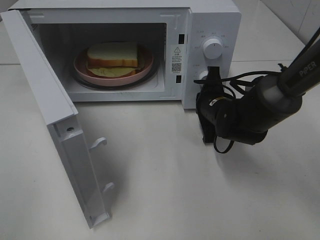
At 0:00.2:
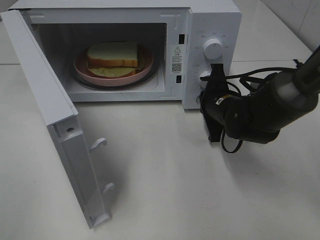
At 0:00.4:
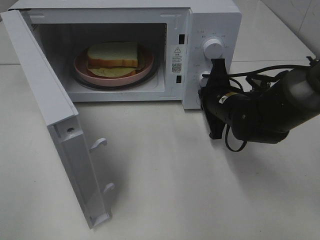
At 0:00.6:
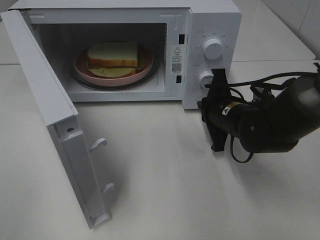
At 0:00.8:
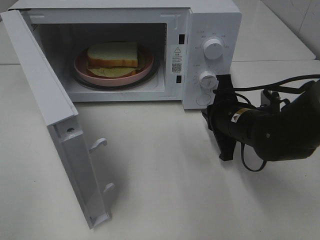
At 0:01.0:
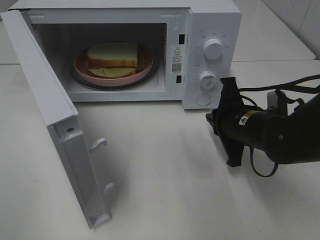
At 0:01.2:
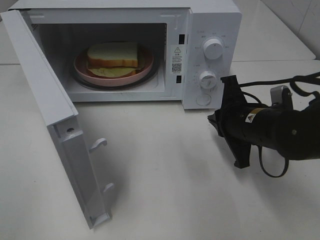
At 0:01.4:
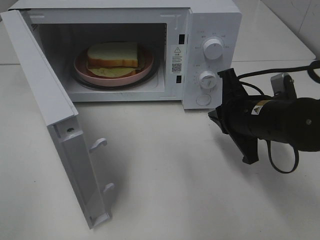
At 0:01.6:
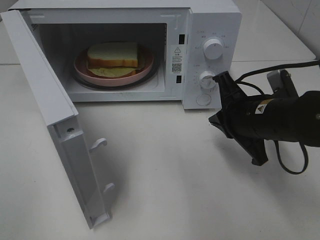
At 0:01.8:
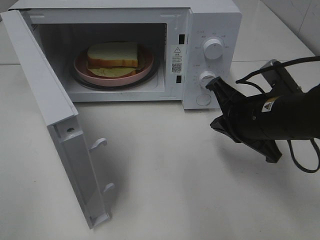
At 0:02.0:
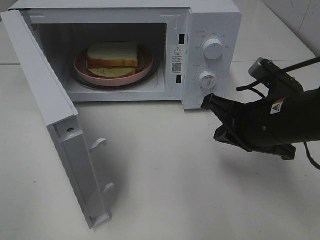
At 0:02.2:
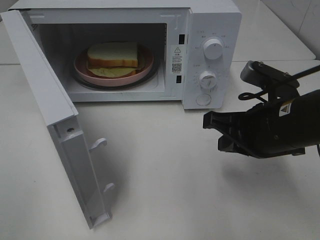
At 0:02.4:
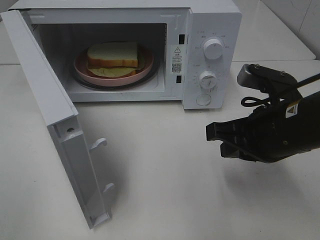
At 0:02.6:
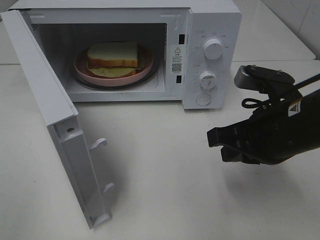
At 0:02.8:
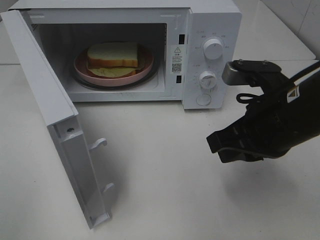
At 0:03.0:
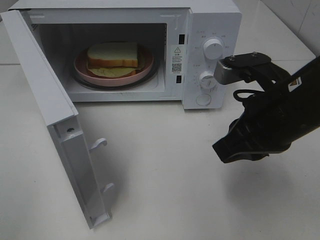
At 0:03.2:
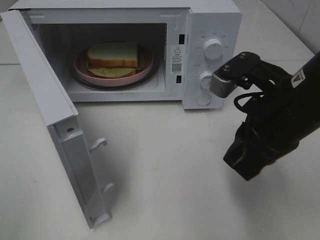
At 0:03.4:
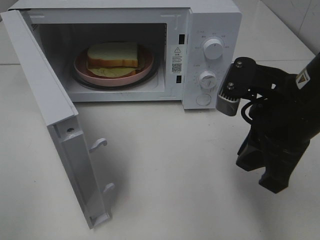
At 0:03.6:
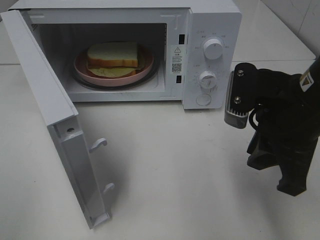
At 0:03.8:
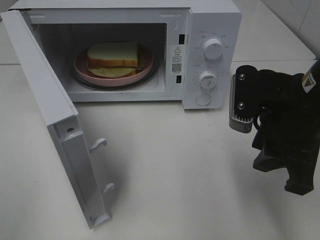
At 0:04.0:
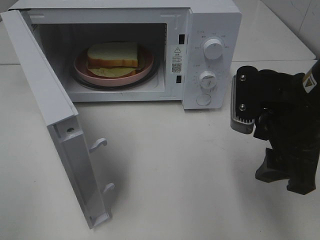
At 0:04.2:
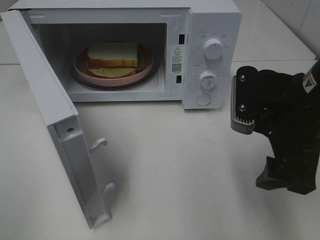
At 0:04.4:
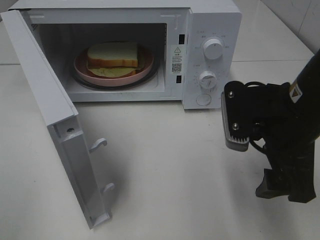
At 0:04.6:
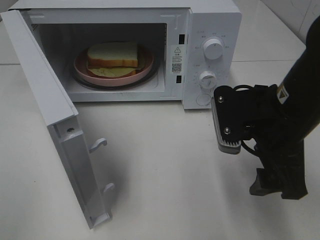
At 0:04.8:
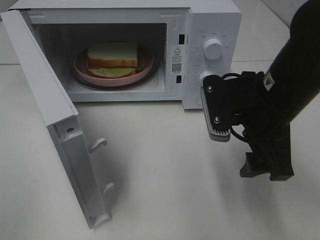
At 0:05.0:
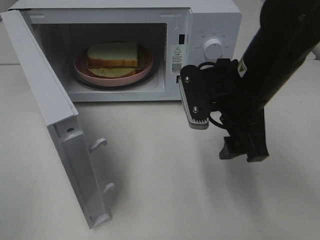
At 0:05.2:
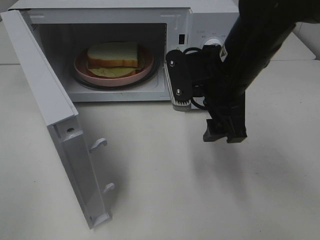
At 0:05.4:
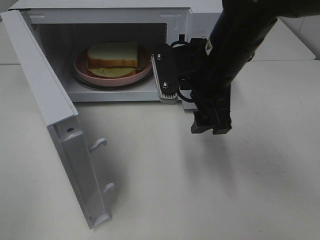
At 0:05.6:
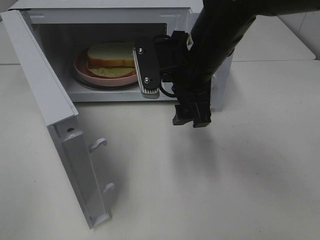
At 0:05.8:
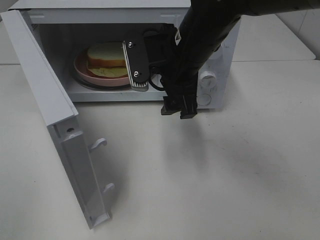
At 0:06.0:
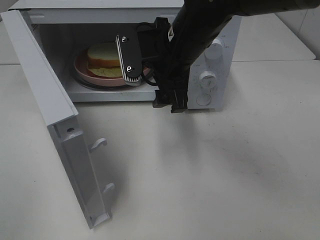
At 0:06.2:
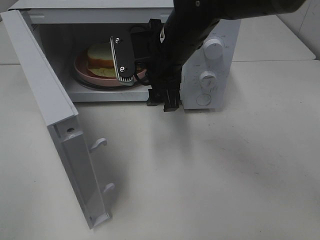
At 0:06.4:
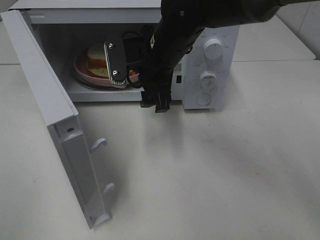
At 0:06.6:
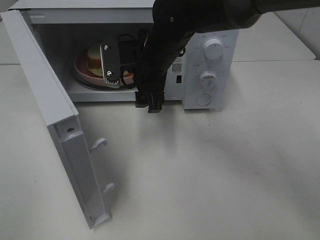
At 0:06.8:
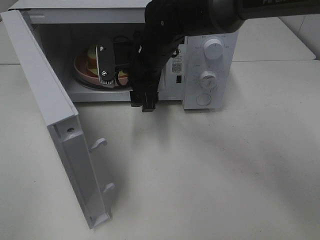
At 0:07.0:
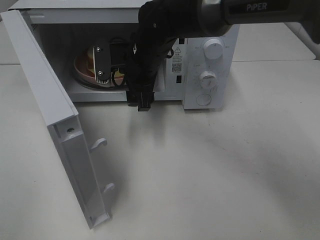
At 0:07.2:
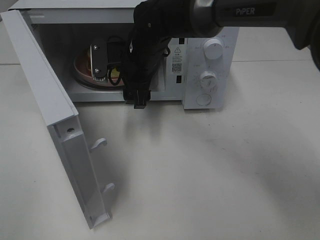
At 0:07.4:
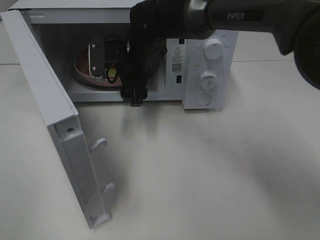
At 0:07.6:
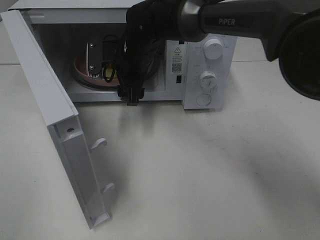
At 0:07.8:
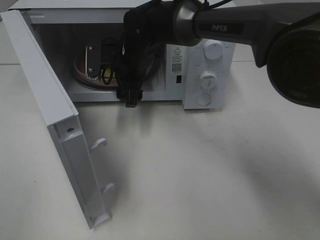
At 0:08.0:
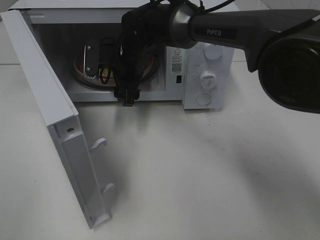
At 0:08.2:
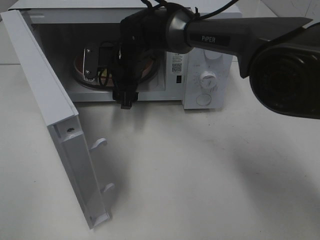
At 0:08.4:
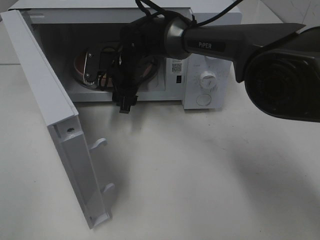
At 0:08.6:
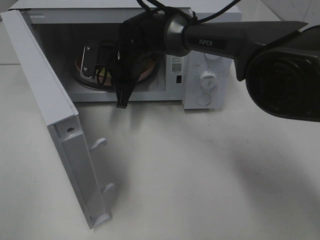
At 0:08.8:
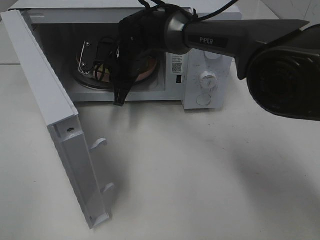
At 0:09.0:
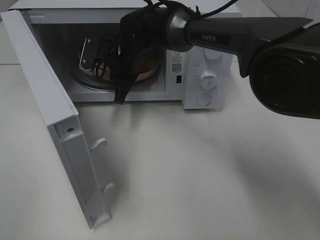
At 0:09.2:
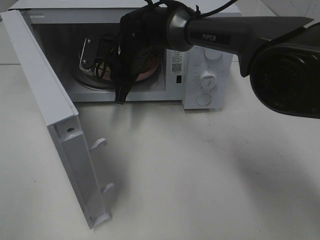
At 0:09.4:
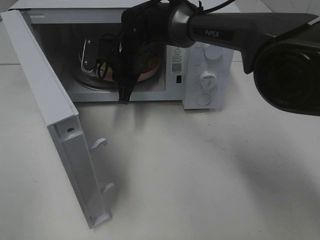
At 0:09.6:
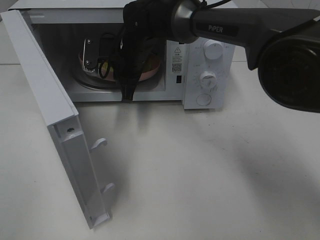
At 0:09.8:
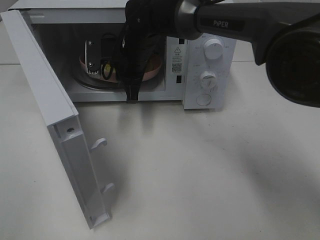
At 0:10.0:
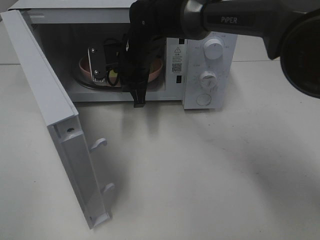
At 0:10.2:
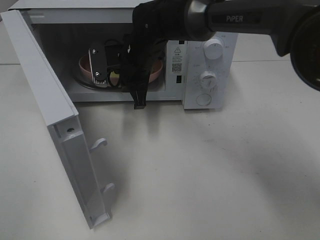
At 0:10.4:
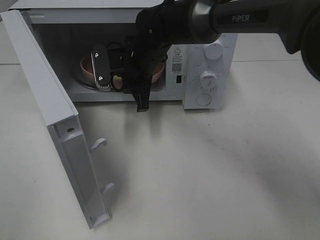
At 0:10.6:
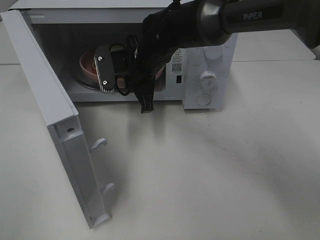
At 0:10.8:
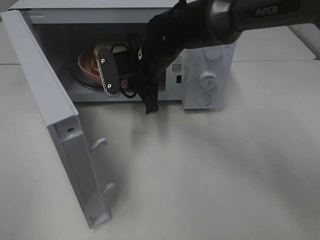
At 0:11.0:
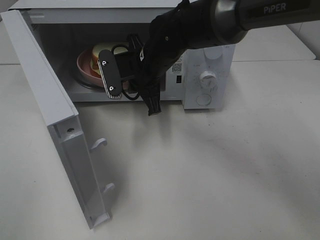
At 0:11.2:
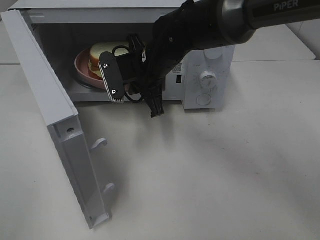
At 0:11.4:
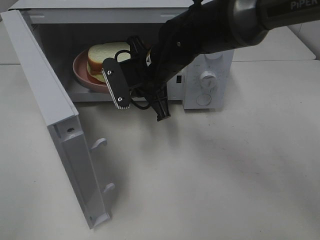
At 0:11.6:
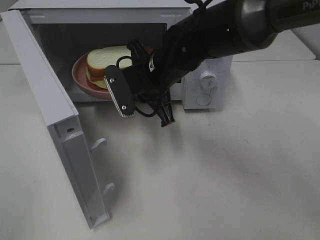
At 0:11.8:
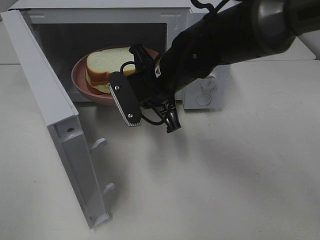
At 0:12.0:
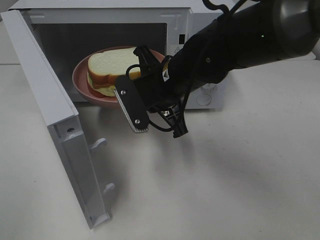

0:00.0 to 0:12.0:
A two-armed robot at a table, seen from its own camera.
Task of the whole recording: Heat Sandwich.
Step, 0:00.4 to 0:09.0: Right hand: grab the plate with the sandwich.
0:00.0 to 0:01.6: The right gripper travels backward and upward by roughly 10 cm.
0:01.6 to 0:03.0: The right gripper heads upward, covering approximately 5 cm.
0:03.0 to 0:04.4: The right gripper opens up.
0:04.4 to 0:06.0: The right gripper goes about 15 cm to the left and forward.
0:06.0 to 0:07.6: The right gripper heads forward, to the left and downward, covering roughly 15 cm.
0:07.6 to 0:09.0: The right gripper closes its fingers.
0:09.0 to 0:10.4: The grippers move only a little.
0:10.4 to 0:12.0: The right gripper heads backward and to the right, covering roughly 10 cm.

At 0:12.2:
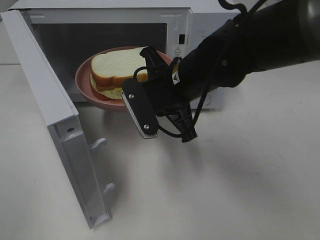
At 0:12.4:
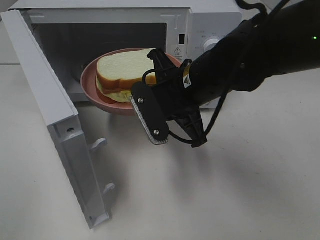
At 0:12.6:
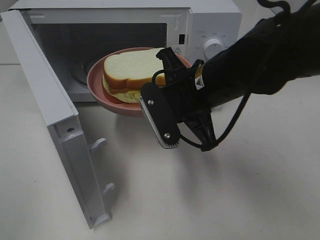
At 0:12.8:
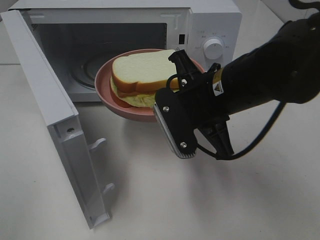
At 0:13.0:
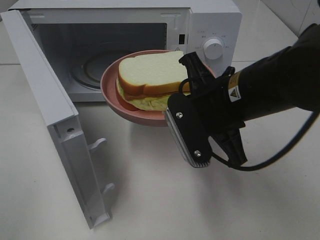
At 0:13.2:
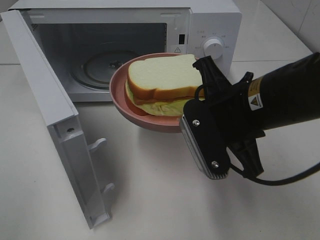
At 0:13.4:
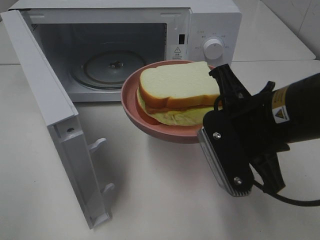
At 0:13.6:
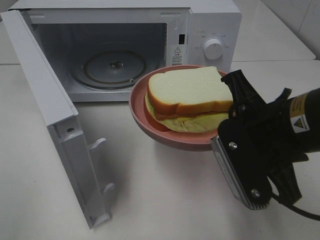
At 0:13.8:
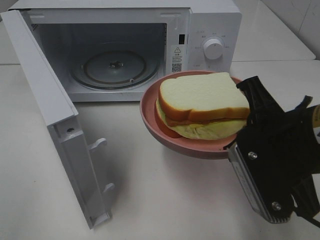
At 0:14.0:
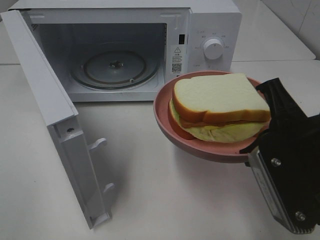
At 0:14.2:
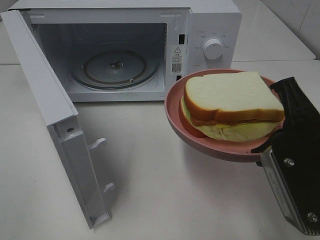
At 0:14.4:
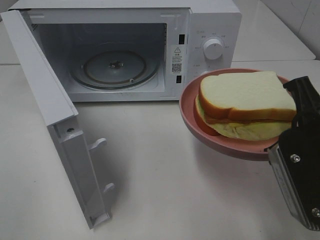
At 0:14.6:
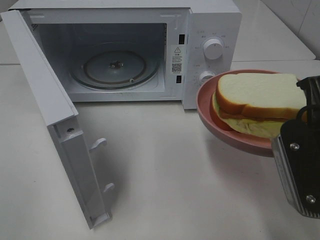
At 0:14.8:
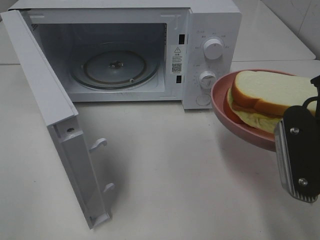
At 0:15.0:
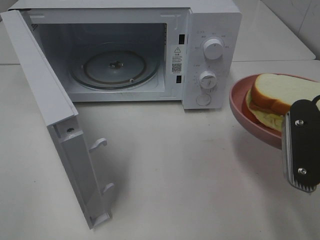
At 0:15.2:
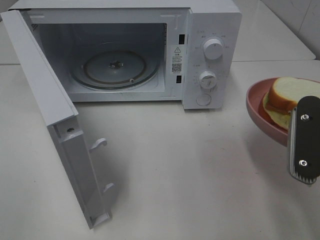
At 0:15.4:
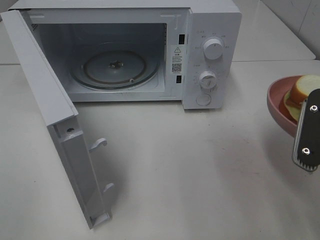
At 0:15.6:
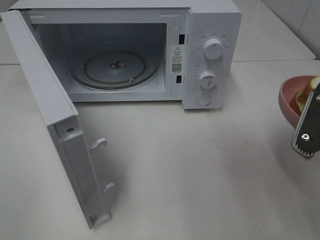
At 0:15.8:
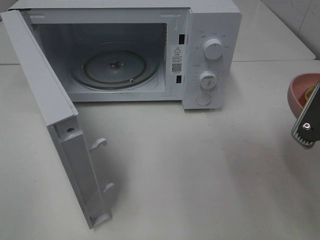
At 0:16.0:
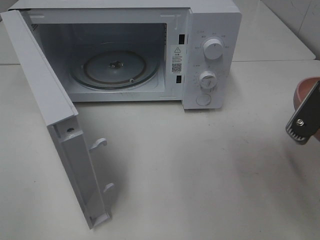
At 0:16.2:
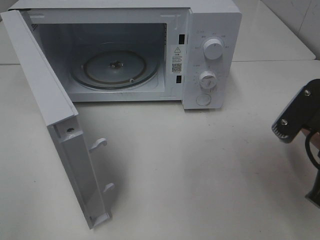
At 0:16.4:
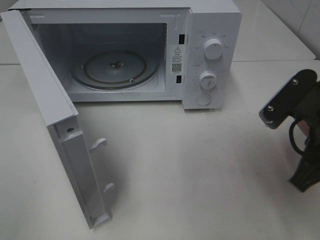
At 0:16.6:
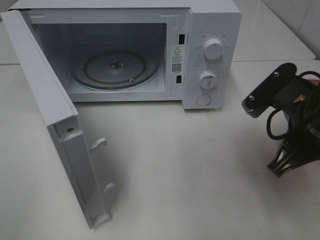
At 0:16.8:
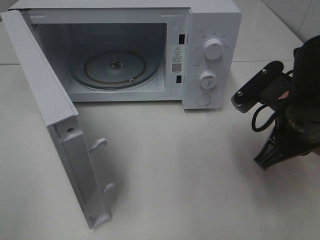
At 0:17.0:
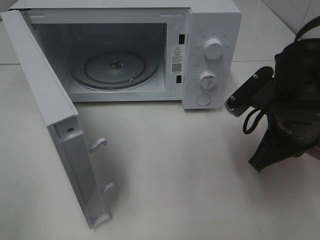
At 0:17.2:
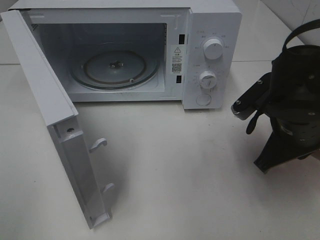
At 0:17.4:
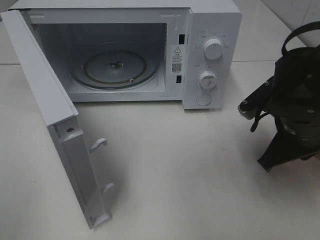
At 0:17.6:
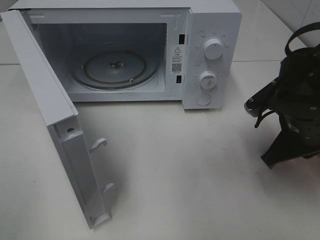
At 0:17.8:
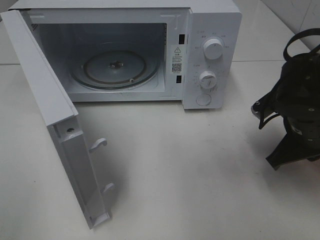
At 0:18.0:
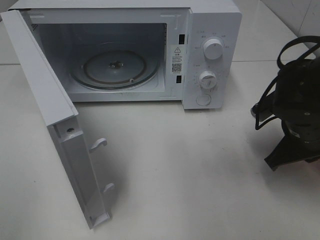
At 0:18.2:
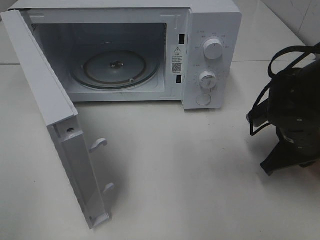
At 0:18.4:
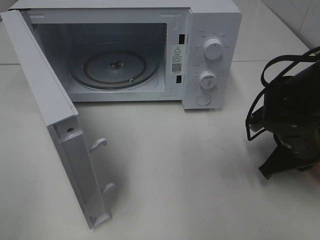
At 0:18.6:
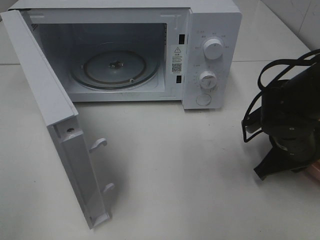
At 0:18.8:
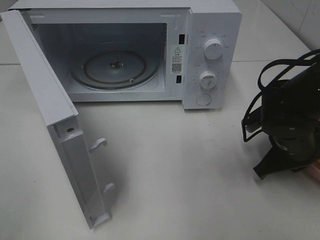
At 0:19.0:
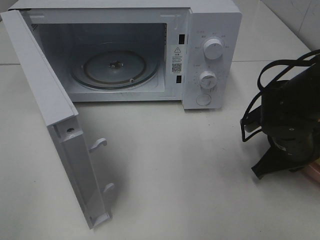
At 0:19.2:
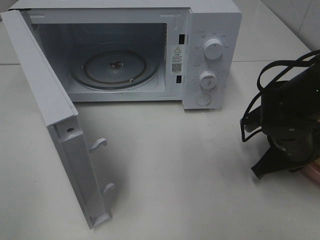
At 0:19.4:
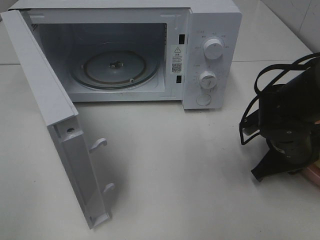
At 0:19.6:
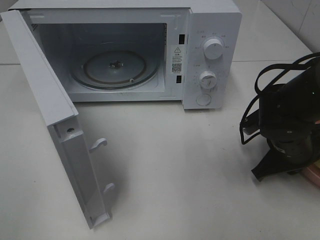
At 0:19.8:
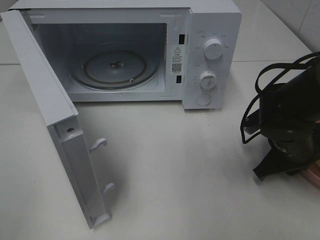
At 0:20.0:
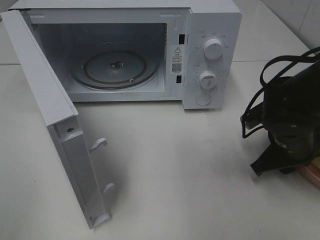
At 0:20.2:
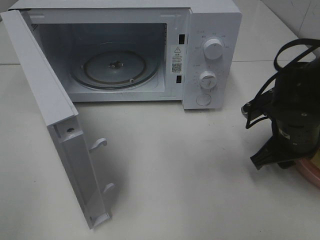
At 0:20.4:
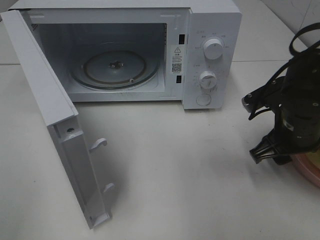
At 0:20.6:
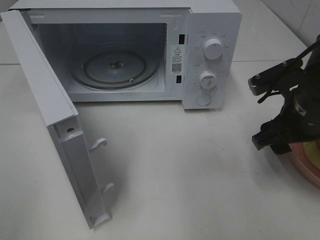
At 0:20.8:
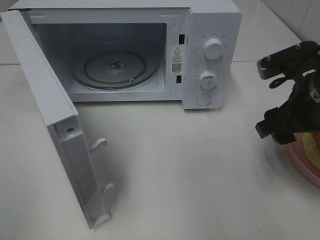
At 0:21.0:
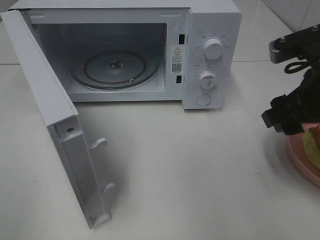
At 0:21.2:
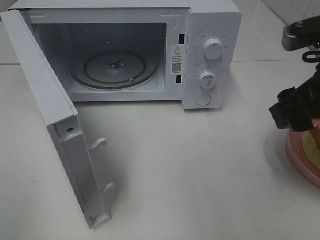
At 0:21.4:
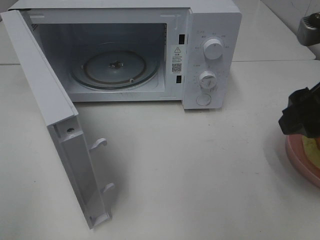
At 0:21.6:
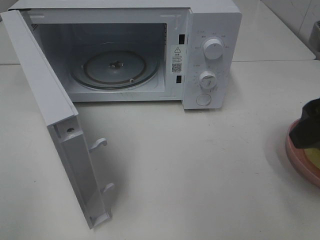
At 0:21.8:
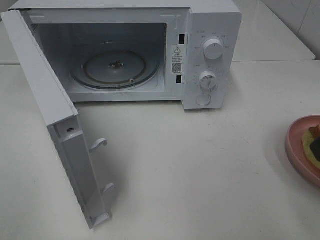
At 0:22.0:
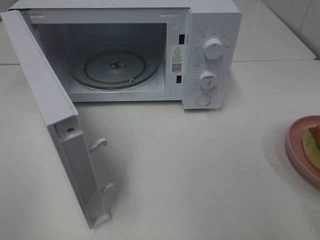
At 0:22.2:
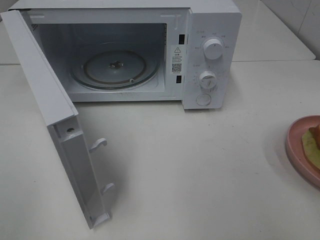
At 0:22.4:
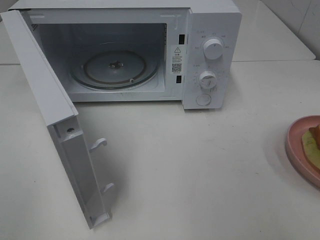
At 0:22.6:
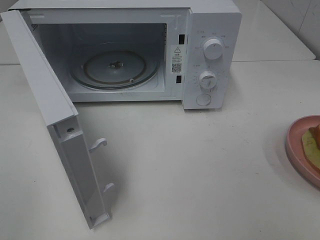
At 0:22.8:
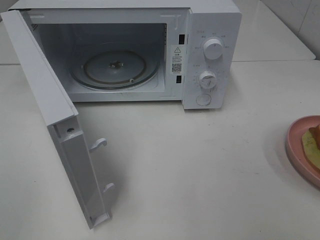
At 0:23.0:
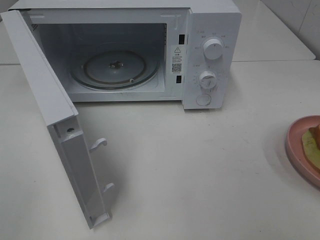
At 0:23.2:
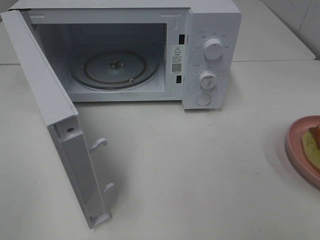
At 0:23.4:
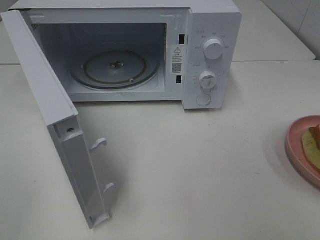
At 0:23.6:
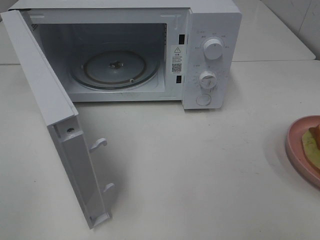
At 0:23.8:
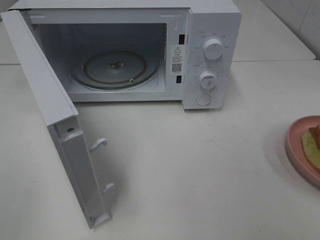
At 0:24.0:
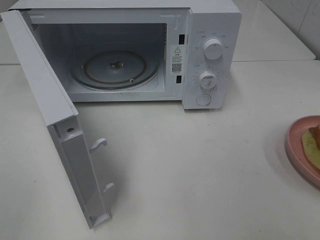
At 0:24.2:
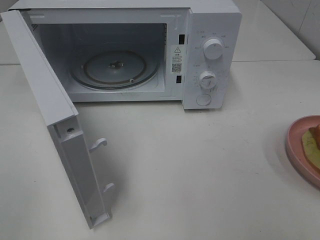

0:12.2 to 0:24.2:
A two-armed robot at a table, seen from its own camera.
Task of the whole recording: Heat Sandwich.
Step, 0:12.2 to 0:21.0: Right hand: place the plate on the table.
0:12.2 to 0:13.8: The right gripper moves backward and to the right, approximately 20 cm.
0:13.8 to 0:15.2: The right gripper goes approximately 5 cm to the right.
0:15.2 to 0:16.6: The right gripper travels forward by roughly 5 cm.
0:16.6 to 0:18.2: The right gripper moves downward and forward, about 10 cm.
0:18.2 to 0:19.8: There are only small adjustments of the grippers.
0:19.8 to 0:21.2: The right gripper moves upward, about 20 cm, and opens.
0:21.2 to 0:22.6: The right gripper shifts about 20 cm backward and to the right.
